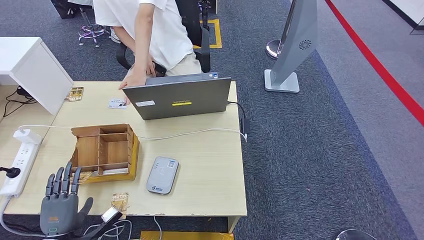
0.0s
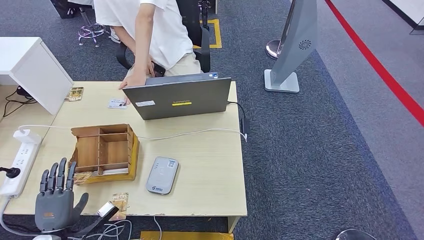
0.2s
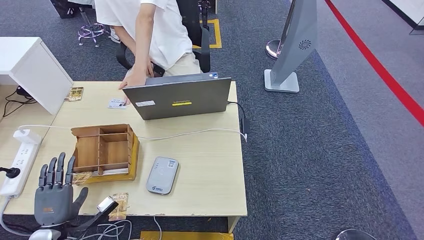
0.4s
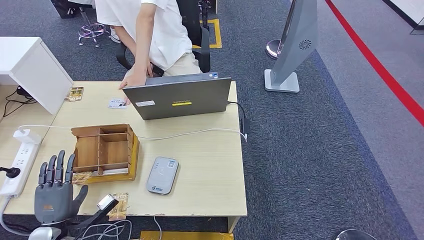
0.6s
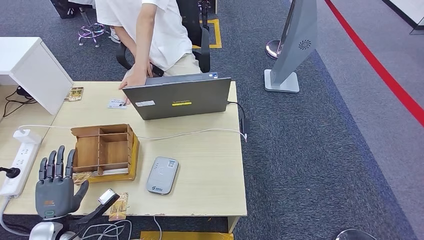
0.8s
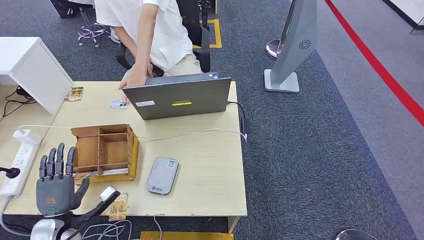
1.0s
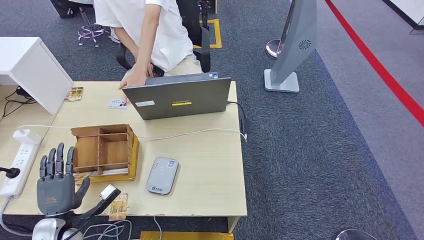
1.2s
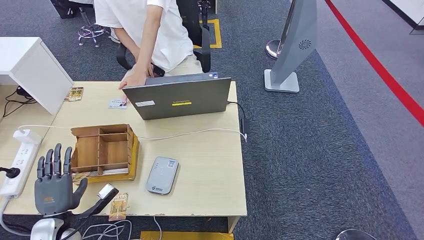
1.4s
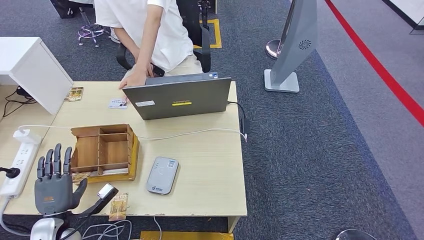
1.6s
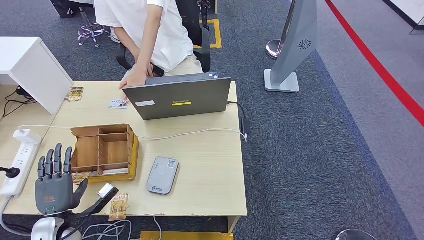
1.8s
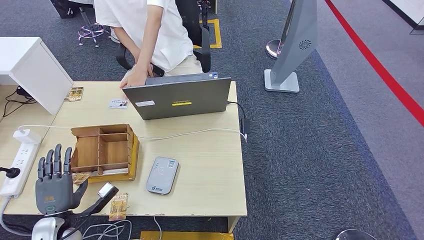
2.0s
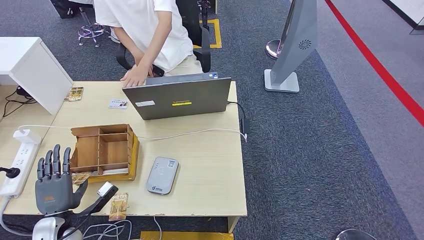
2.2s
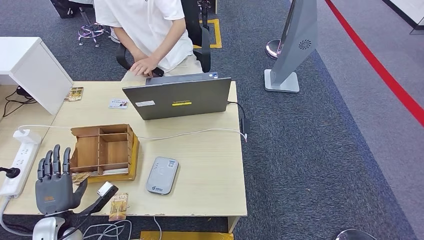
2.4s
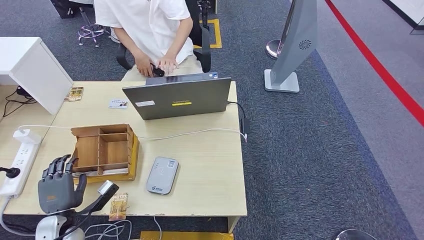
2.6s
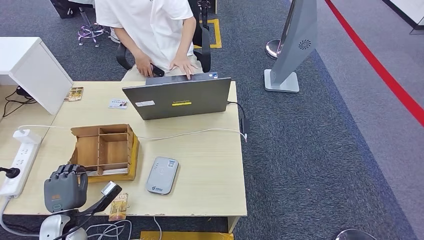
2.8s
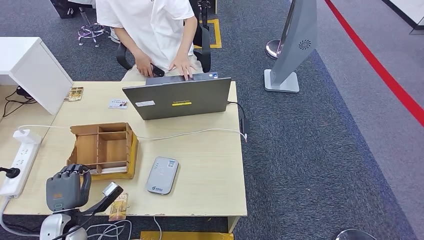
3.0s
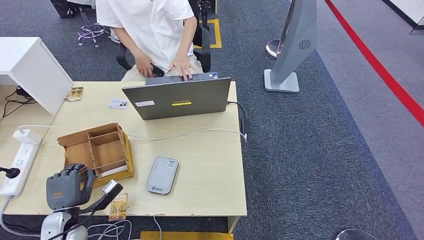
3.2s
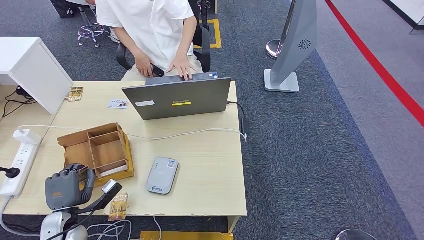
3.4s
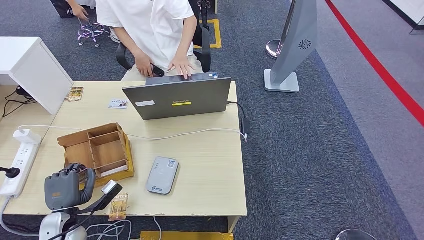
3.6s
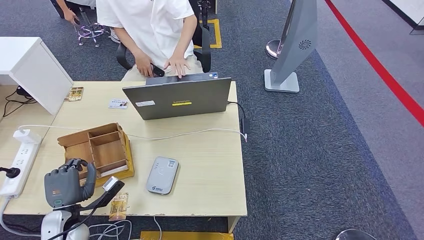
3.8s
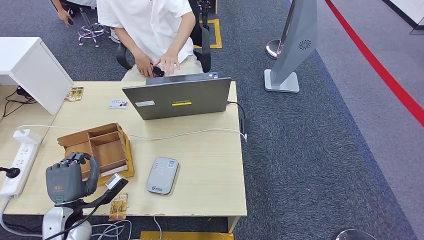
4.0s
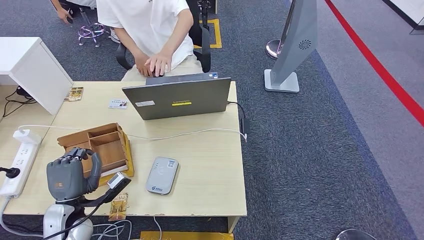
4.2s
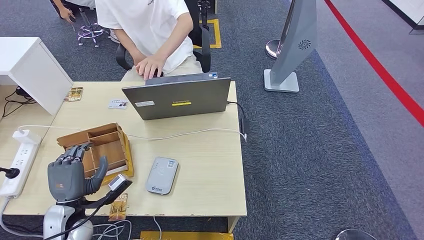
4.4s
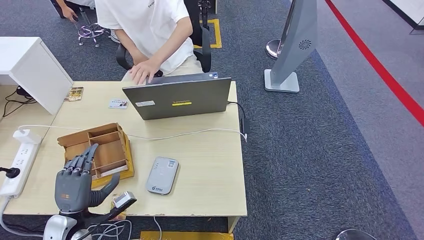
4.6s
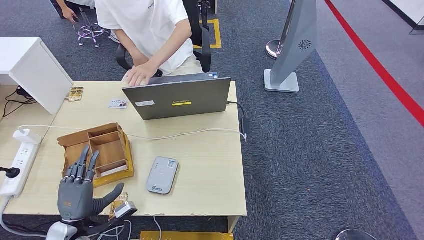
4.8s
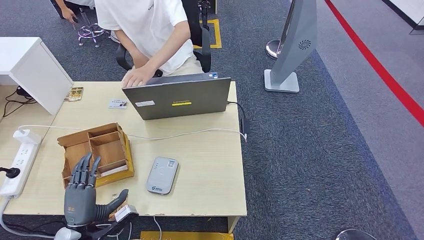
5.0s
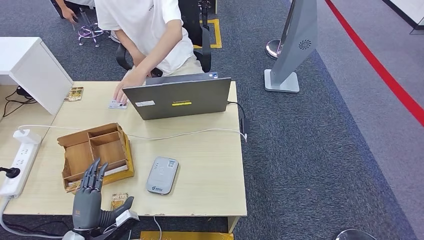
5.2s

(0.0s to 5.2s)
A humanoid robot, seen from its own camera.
Step, 0.0s - 5.2s: Hand the room key to the person.
0.0s - 1.8s: The left hand shifts by some 5 cm.
1.8s - 3.4s: The hands move only a little.
3.4s - 5.2s: The left hand goes about 10 cm backward and to the right.
